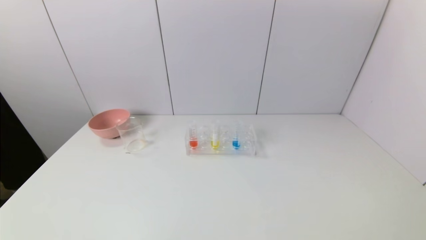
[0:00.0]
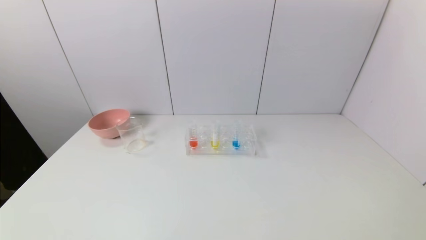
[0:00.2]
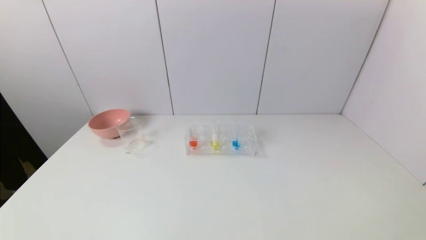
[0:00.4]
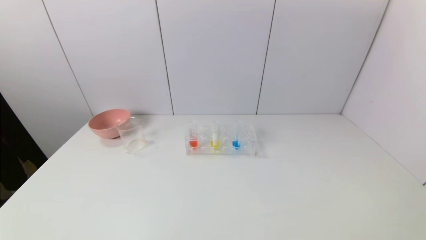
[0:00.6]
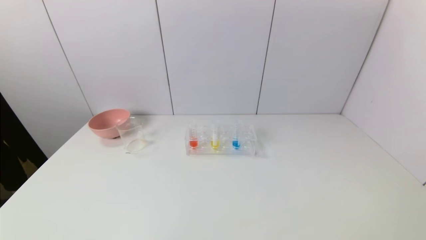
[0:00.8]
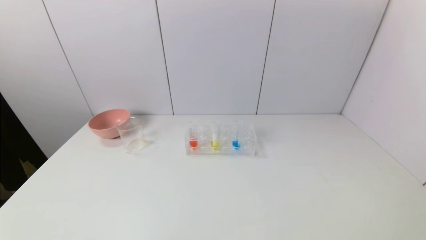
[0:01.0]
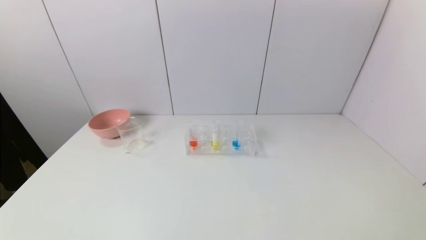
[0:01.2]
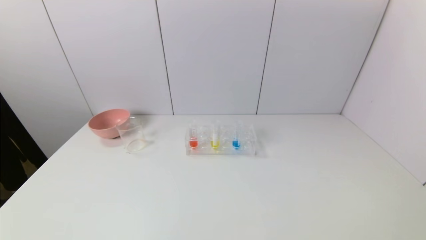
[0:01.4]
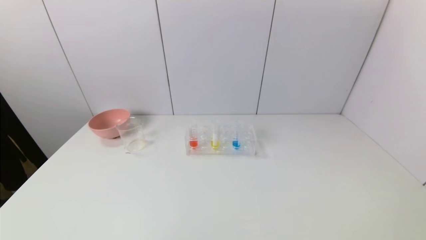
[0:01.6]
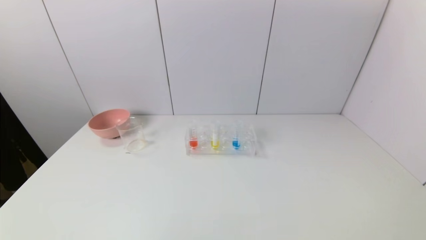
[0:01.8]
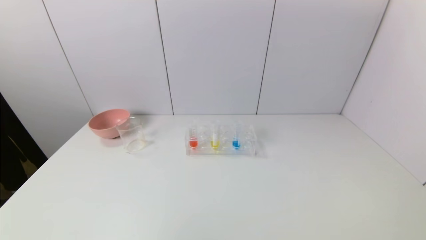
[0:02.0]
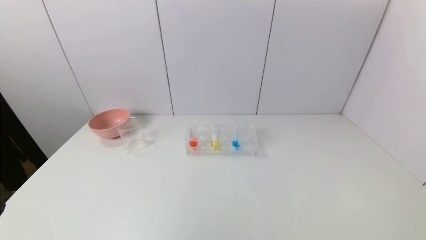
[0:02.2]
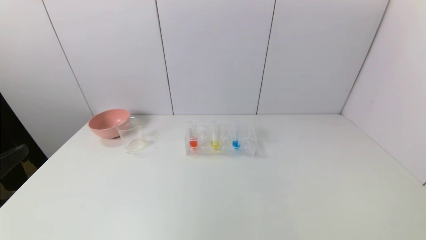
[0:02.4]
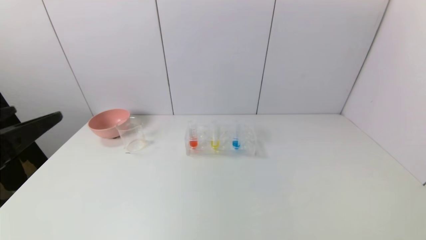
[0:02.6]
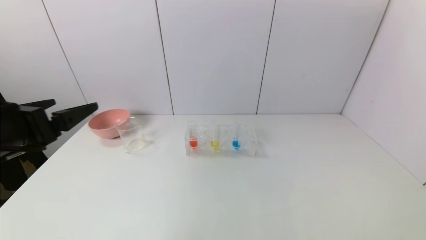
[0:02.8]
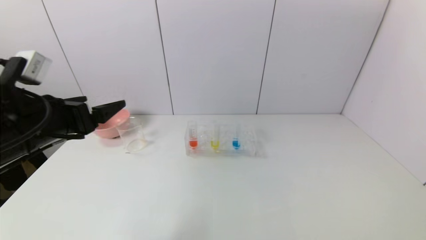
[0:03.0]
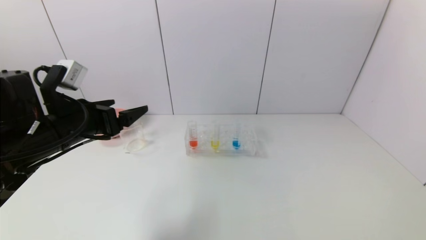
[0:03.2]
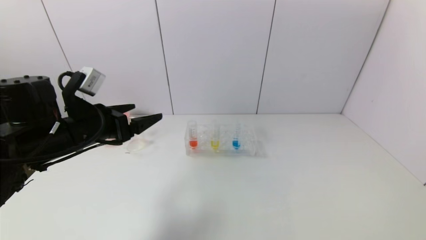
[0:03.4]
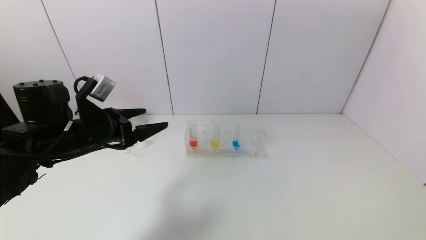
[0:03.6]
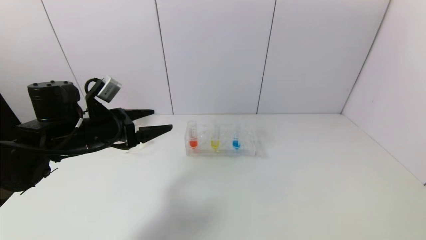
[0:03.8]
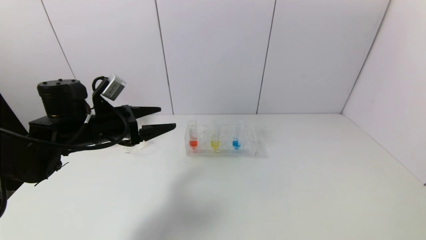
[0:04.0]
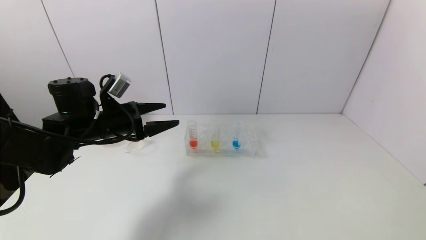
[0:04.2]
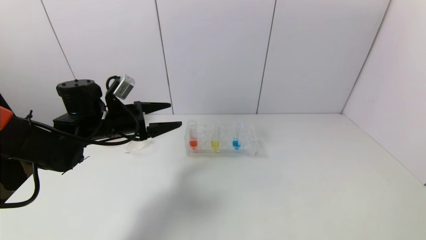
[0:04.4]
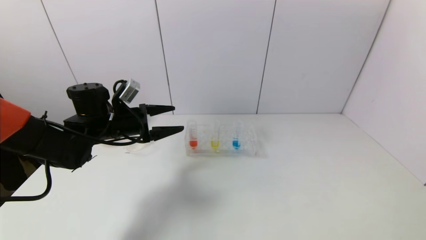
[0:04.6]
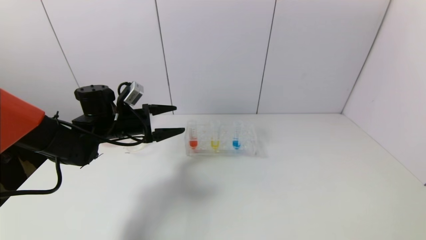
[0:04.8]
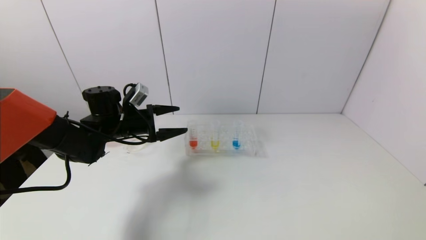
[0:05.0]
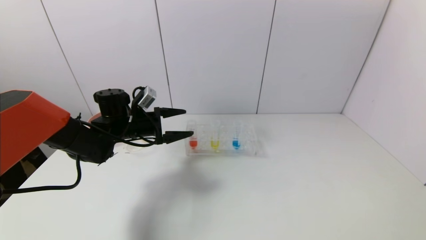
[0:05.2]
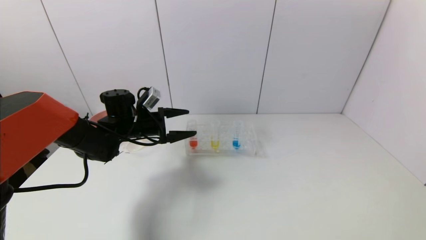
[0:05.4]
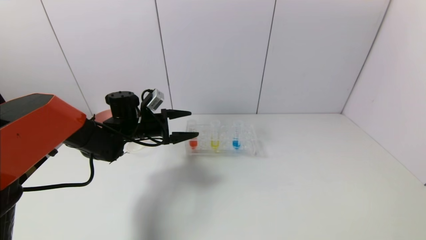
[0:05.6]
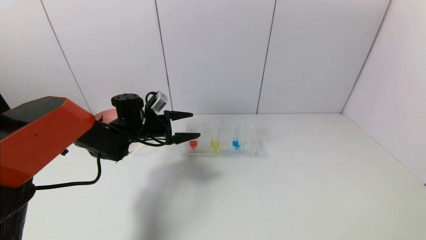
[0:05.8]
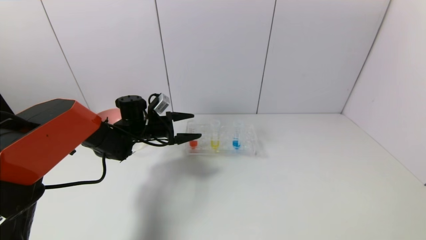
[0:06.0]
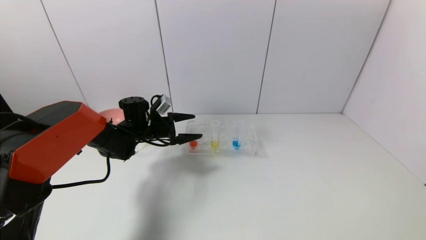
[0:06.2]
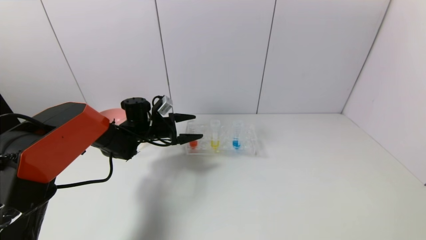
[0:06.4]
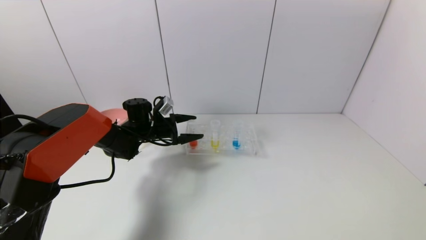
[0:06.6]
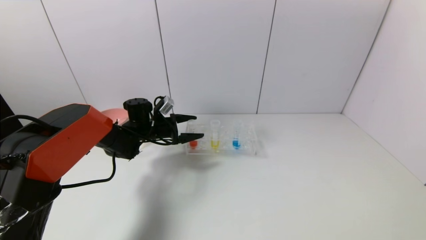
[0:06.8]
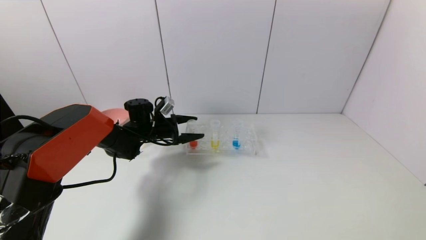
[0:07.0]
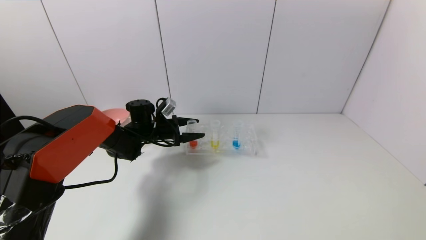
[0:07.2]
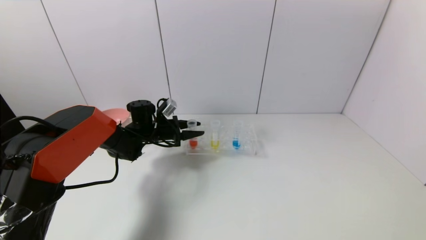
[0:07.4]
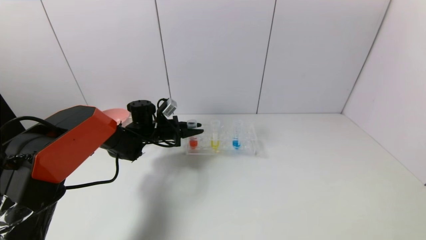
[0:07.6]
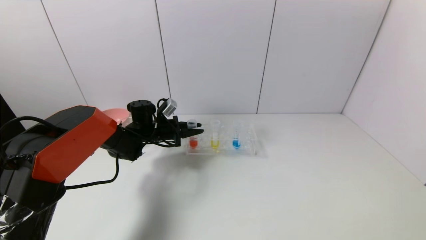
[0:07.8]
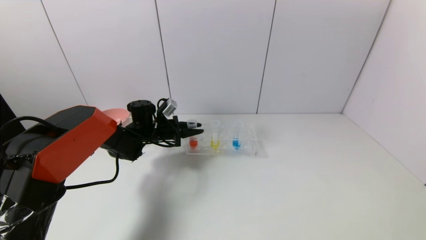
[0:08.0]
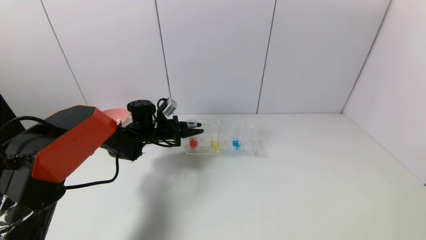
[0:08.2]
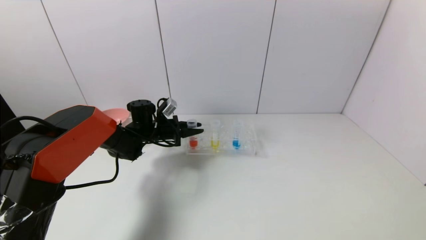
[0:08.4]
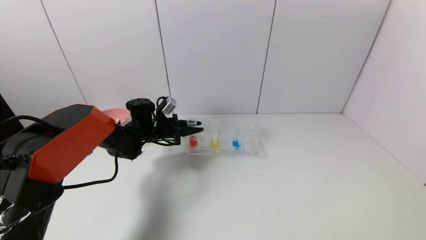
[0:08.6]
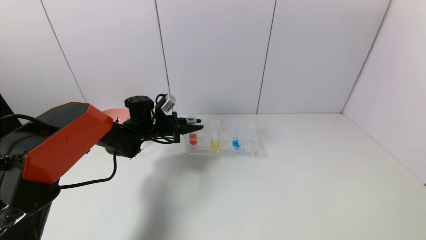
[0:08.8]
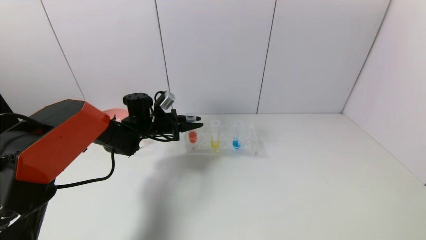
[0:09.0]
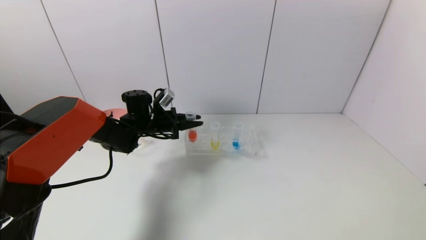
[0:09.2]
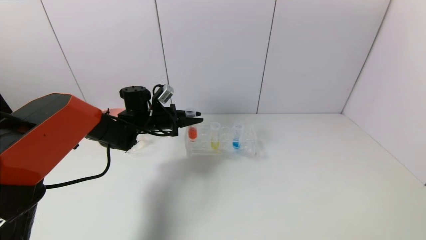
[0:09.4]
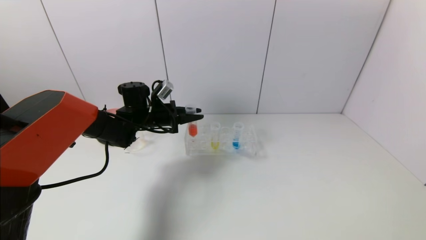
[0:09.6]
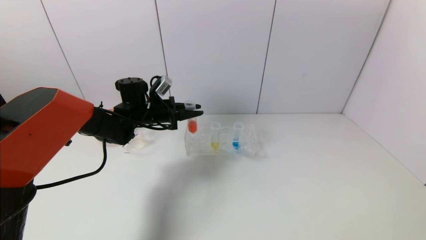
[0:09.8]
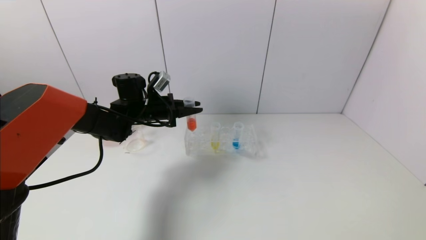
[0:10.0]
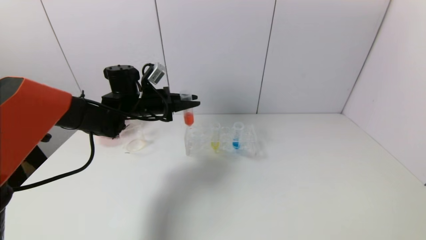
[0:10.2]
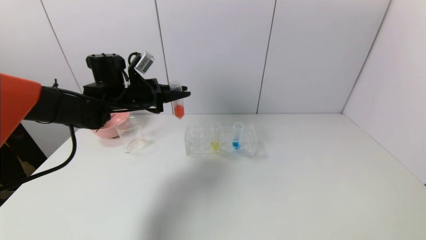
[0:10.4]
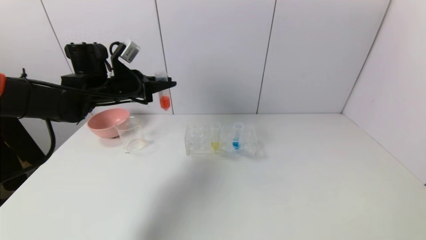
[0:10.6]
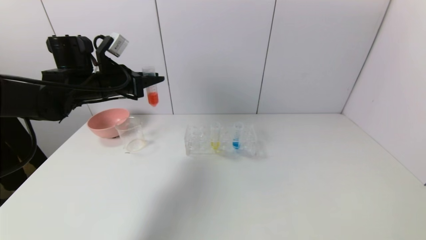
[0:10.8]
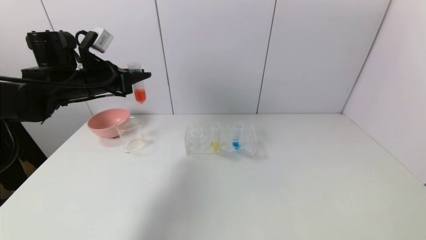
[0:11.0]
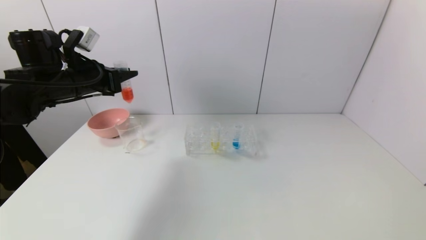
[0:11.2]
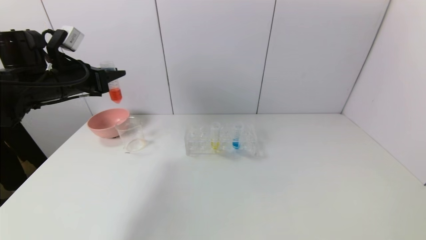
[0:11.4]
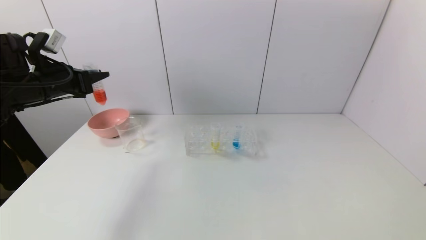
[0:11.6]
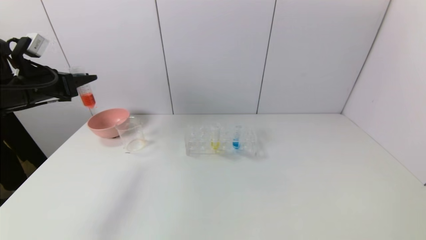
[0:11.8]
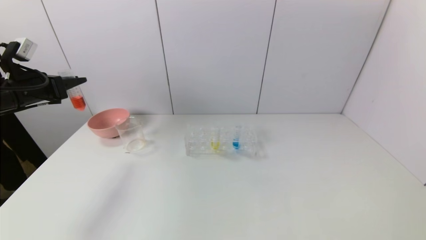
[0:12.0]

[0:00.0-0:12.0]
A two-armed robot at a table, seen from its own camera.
Task of the whole recording: pick up the test tube with yellow pigment and the test tube with red pigment by grippers and pour them into the beaker.
Step, 0:00.0 to 0:07.6: Grasp the red reagent with the left gripper.
0:01.6 to 0:03.0: The left gripper goes approximately 30 cm forward and upward.
0:03.0 to 0:04.4: The left gripper is displaced forward and downward by roughly 15 cm.
0:04.4 to 0:06.0: The left gripper heads forward and downward, covering about 10 cm.
0:06.0 to 0:07.6: The left gripper closes its fingers.
0:07.6 to 0:09.0: The grippers move only a little.
0:09.0 to 0:10.4: The left gripper is displaced upward by some 10 cm.
0:10.4 to 0:12.0: The left gripper travels to the left by about 20 cm.

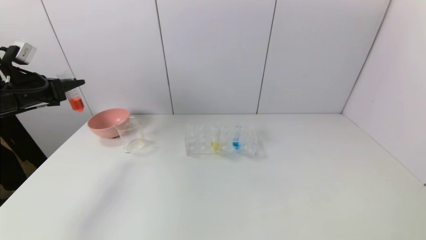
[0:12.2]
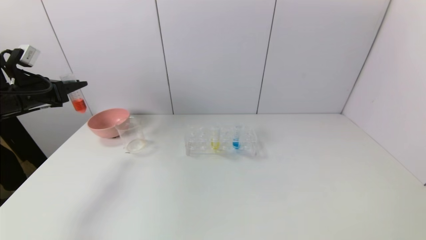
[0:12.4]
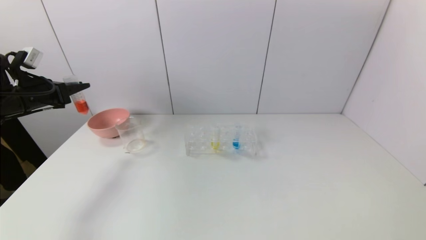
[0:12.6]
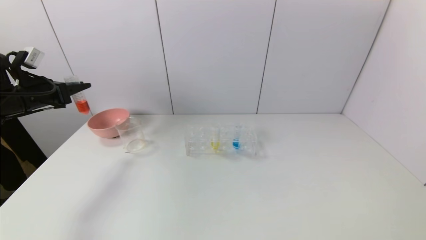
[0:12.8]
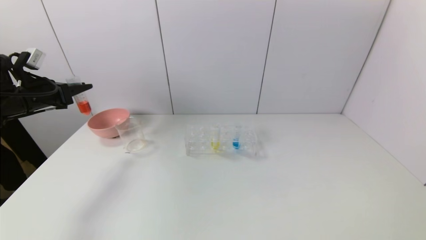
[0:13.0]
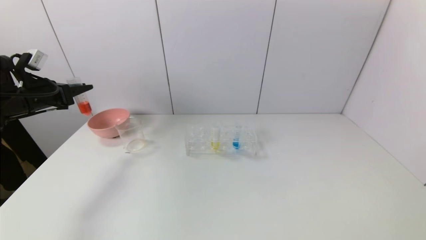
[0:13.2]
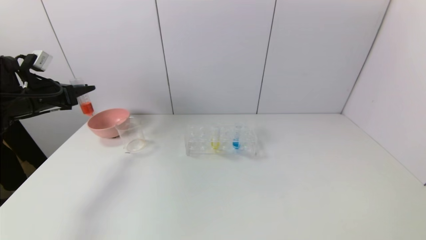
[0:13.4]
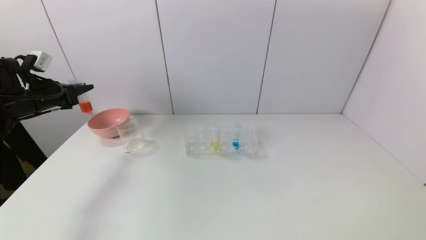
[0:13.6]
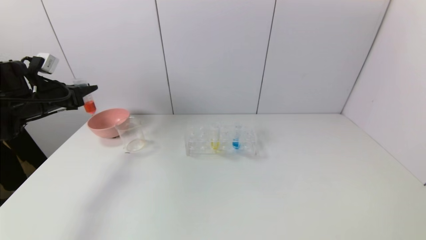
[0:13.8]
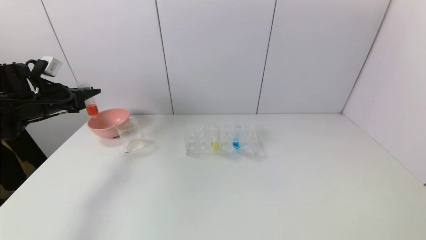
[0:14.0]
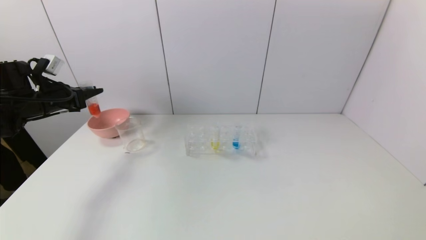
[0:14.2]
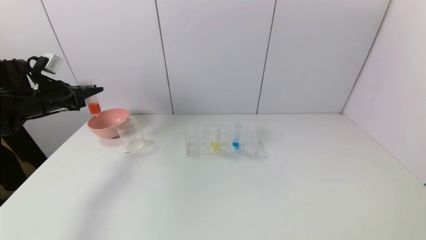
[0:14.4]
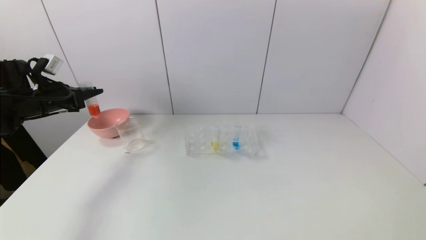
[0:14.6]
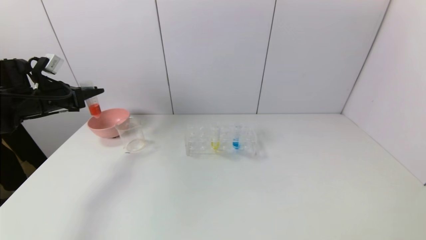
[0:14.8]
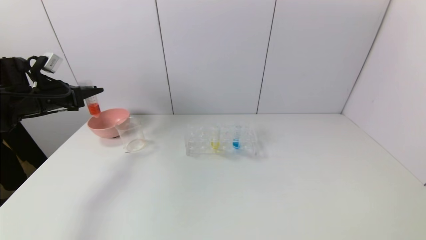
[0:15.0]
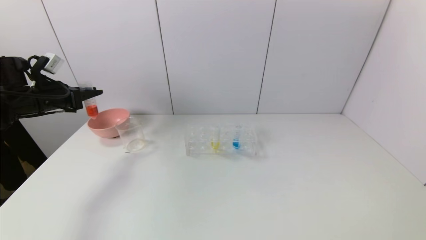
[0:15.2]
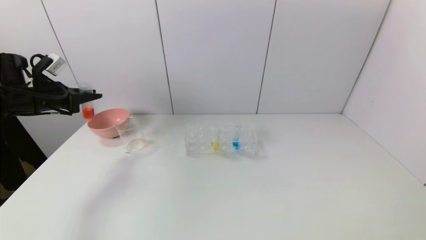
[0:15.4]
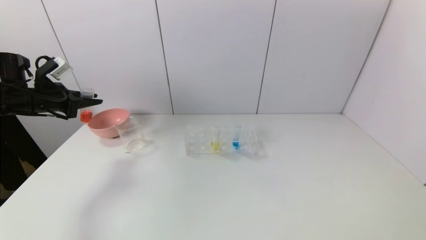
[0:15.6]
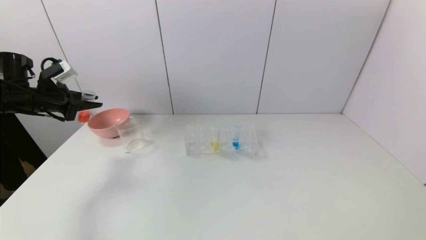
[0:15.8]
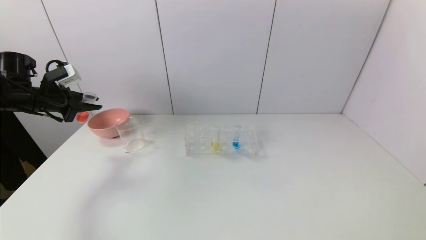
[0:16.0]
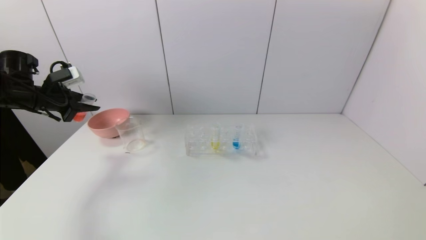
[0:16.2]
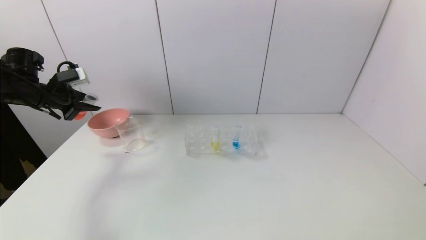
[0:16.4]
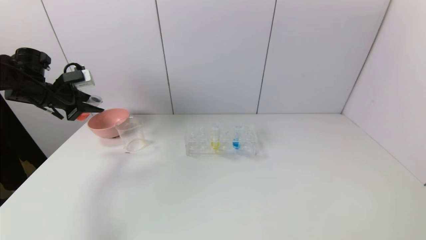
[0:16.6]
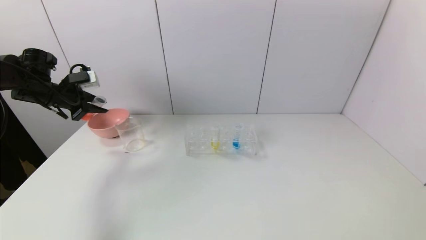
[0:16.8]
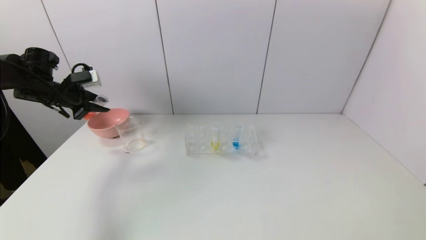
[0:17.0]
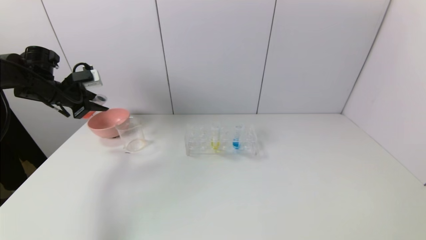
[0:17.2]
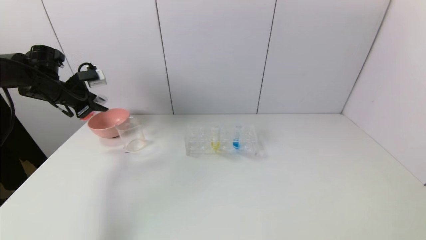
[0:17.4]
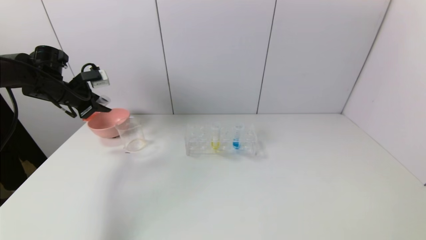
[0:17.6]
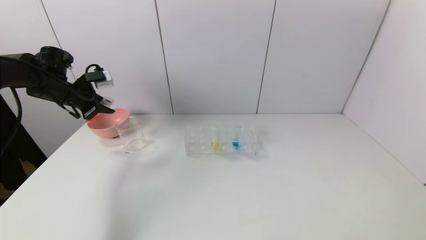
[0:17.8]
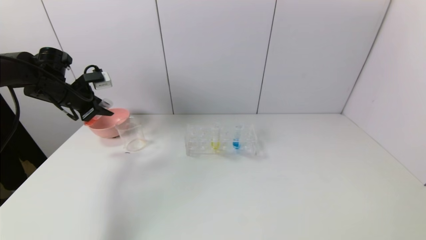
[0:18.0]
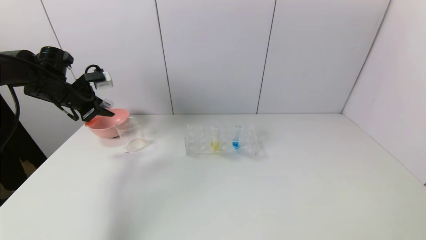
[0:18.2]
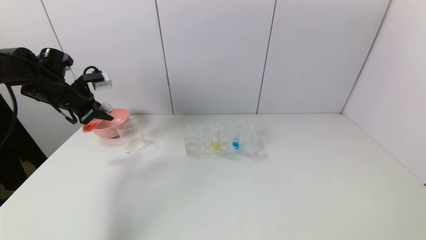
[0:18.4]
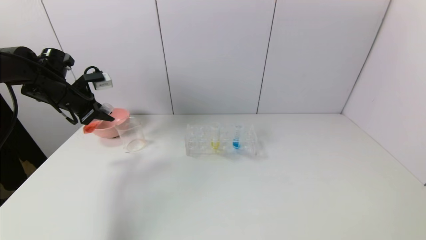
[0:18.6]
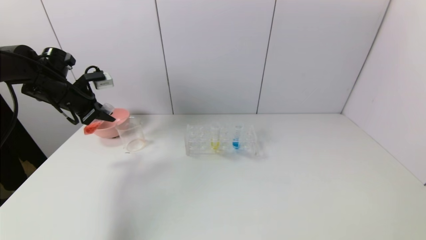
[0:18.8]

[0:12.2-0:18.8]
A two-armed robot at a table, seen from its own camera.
Task of the whole recording: pick up the test tube with yellow pigment and the test tube with red pigment by grippers and pour them into the beaker.
0:12.2 to 0:15.4: There are only small adjustments of the grippers.
0:15.4 to 0:17.2: The left gripper changes place by approximately 5 cm.
